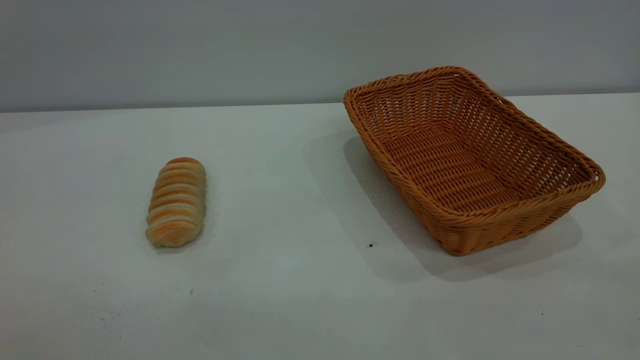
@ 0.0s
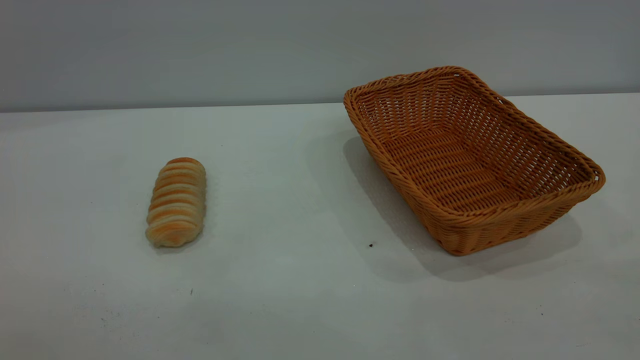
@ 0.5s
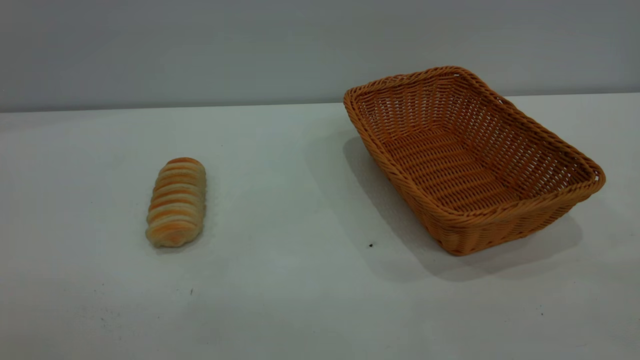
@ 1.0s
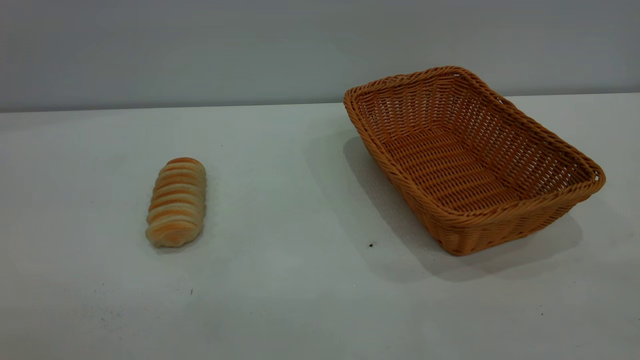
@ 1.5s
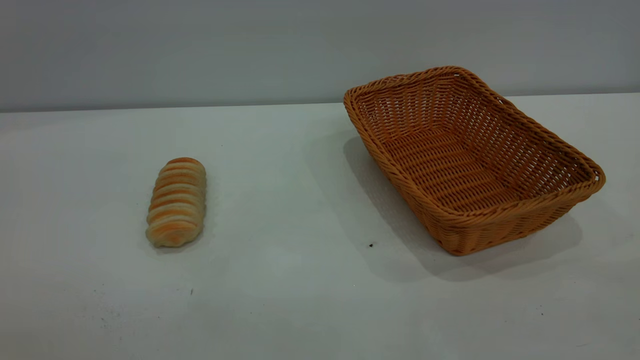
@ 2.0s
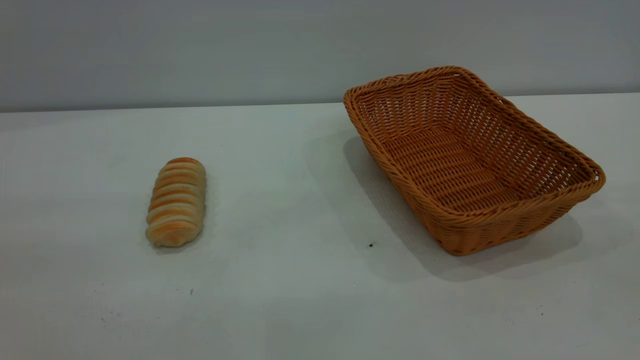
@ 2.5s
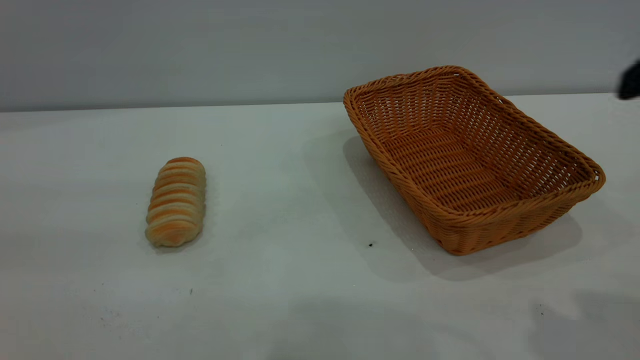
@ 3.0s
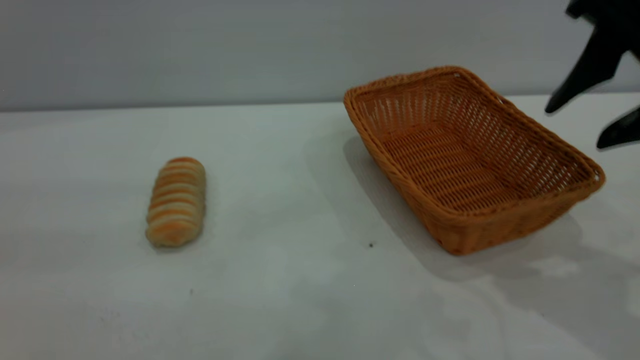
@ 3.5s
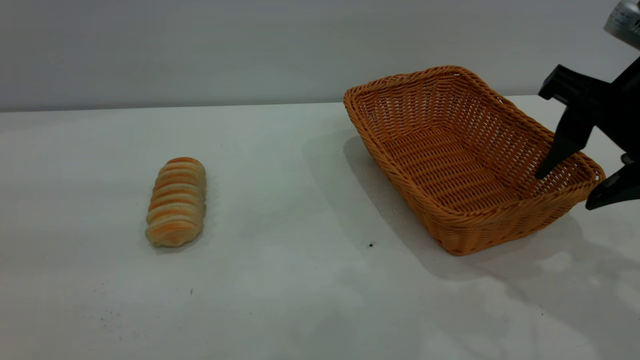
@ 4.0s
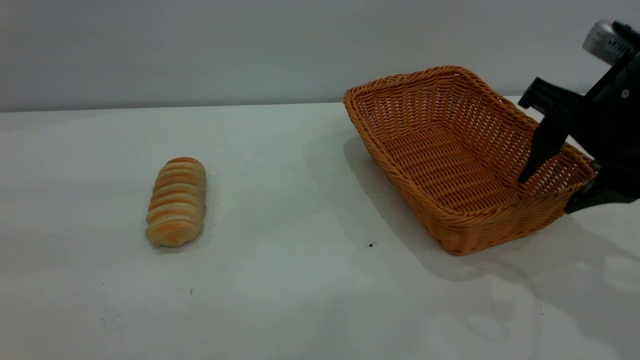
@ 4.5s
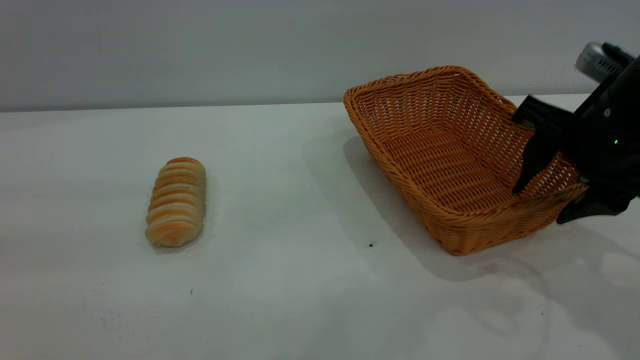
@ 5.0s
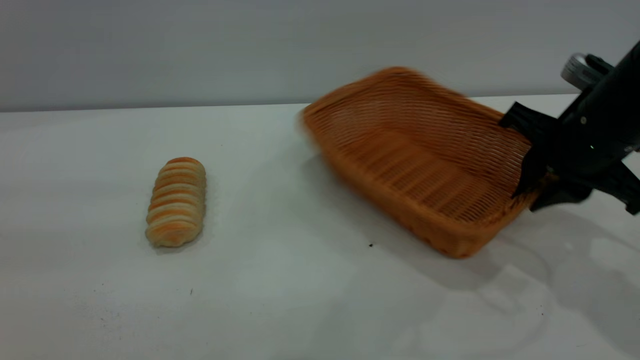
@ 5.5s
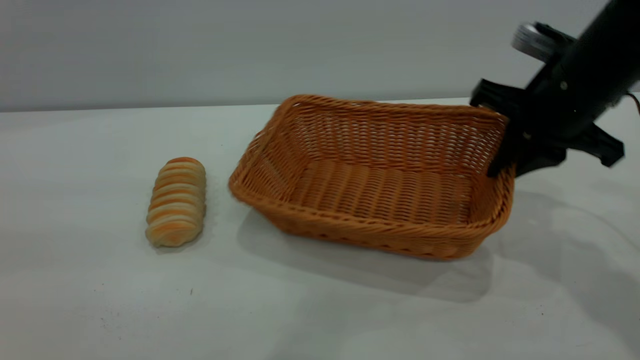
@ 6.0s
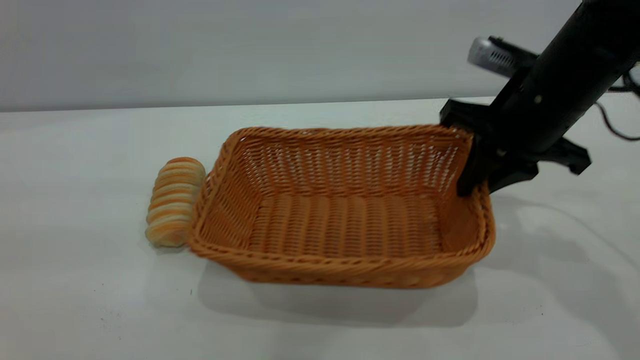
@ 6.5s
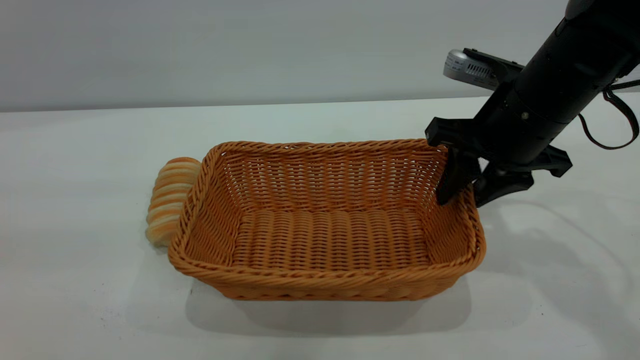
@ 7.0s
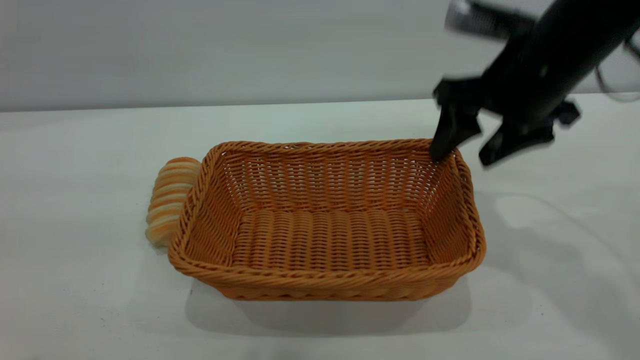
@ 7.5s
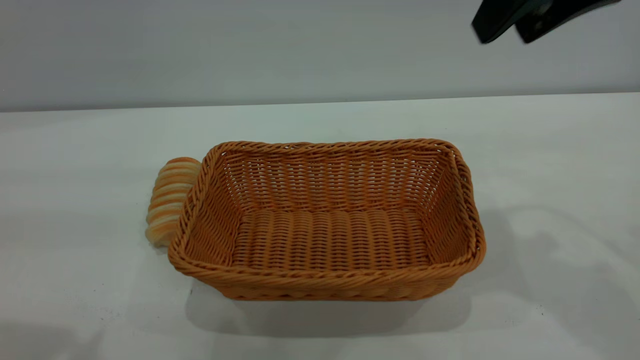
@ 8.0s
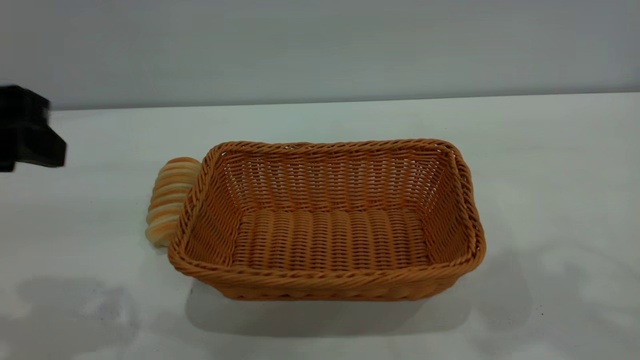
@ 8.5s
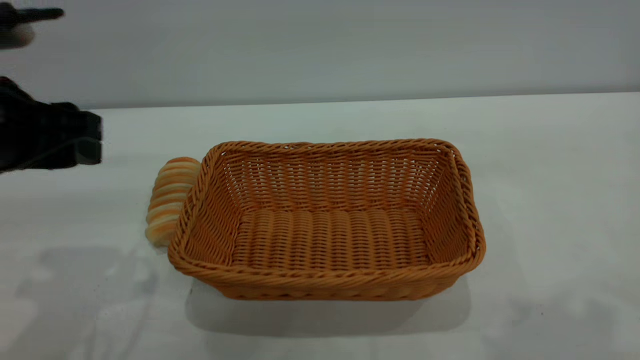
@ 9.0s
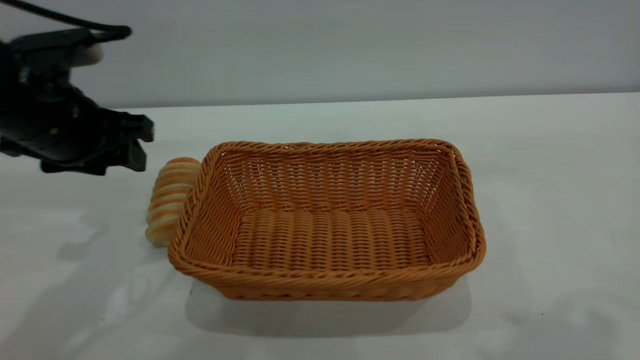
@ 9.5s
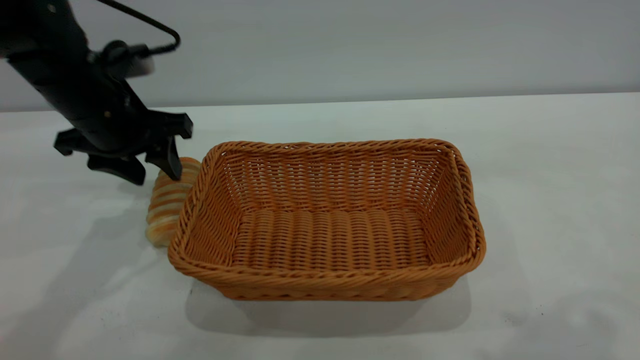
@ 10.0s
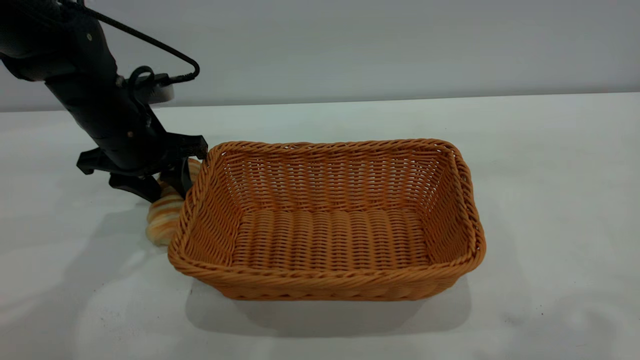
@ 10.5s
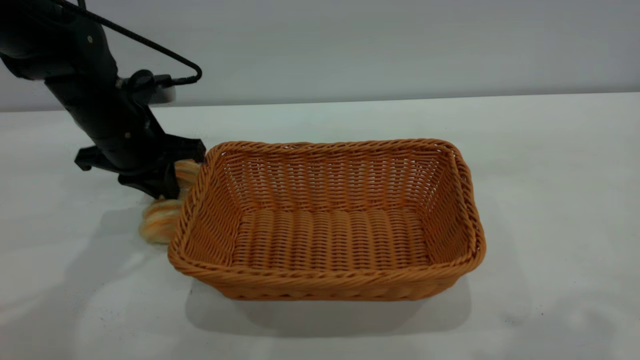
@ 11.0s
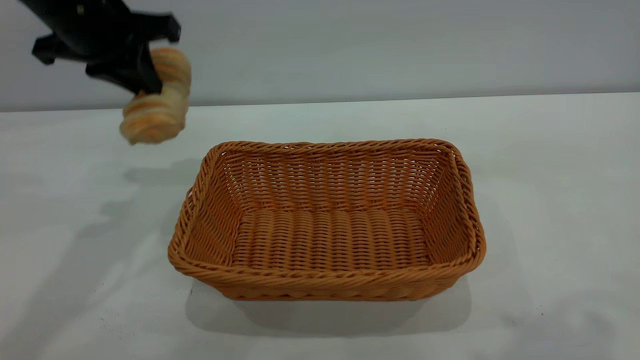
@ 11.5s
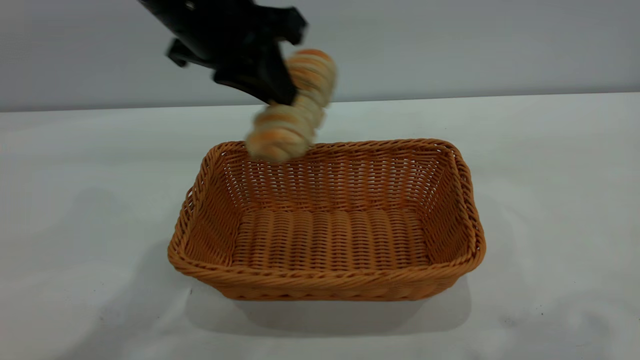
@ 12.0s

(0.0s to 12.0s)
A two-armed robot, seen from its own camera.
Task of the whole recording: One hand grasps the yellow basket and places it in the middle of the table, while the other hand picks up the long bread and puts it into the yellow basket.
Step, 0.0s - 7.5s: Move the basket to the center of view.
2.0s - 4.0s: The right gripper goes some 30 cm forward.
4.0s - 6.0s: The right gripper is displaced forward by about 10 cm, and closes its fingers.
6.0s - 8.0s: The right gripper shifts about 15 cm upward, and opens up; the left gripper ends up approximately 5 cm from where it was.
8.0s - 10.0s: The left gripper travels forward and downward by approximately 25 cm. Meanwhile the right gripper moves backward and upward, roughly 15 cm.
10.0s - 12.0s: The left gripper goes some 15 cm to the right and upward, and closes.

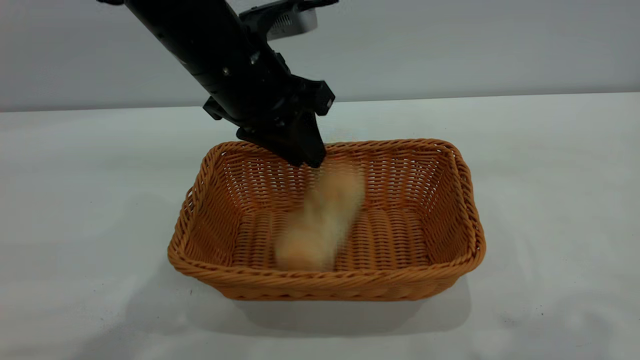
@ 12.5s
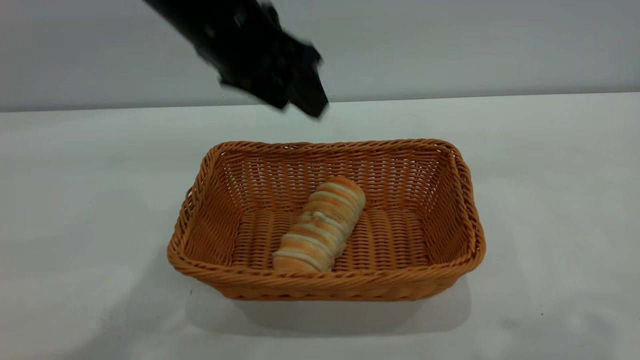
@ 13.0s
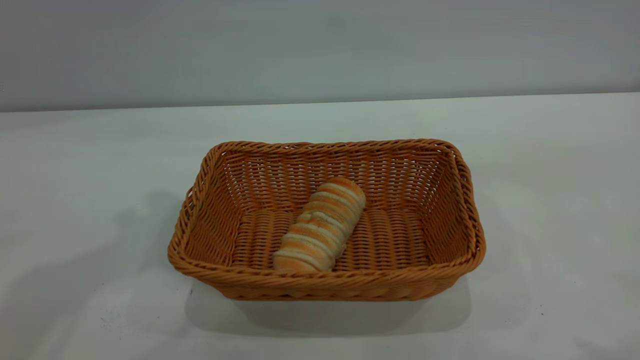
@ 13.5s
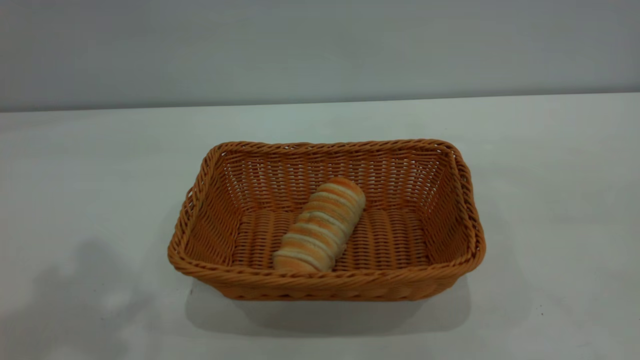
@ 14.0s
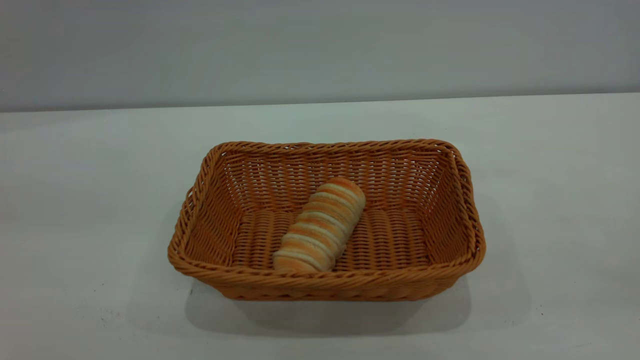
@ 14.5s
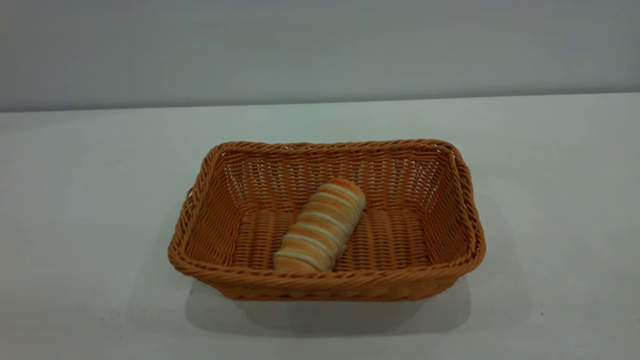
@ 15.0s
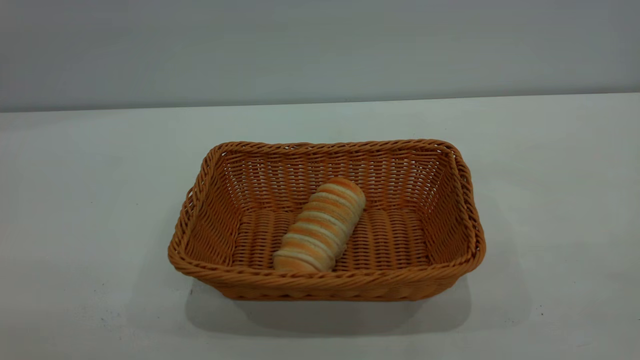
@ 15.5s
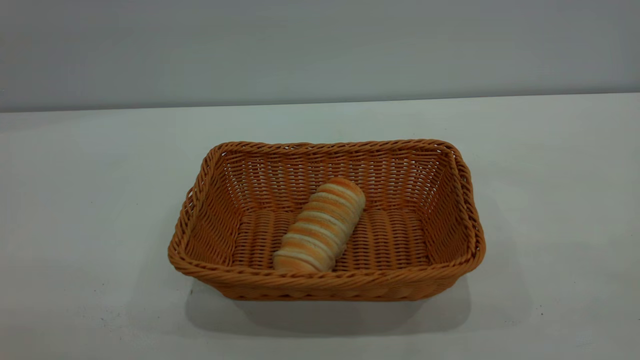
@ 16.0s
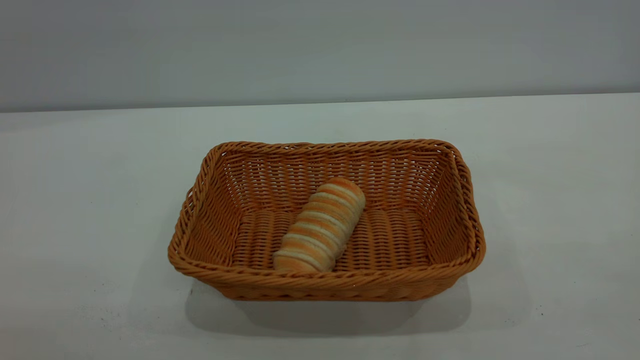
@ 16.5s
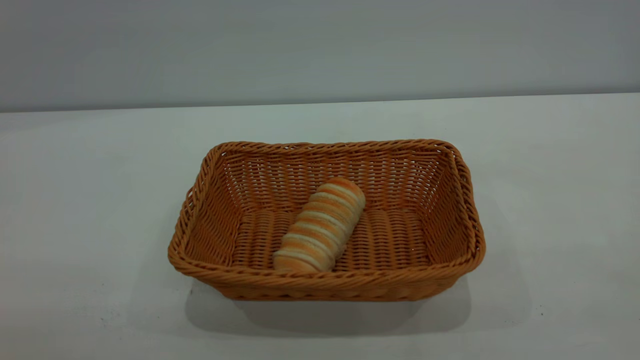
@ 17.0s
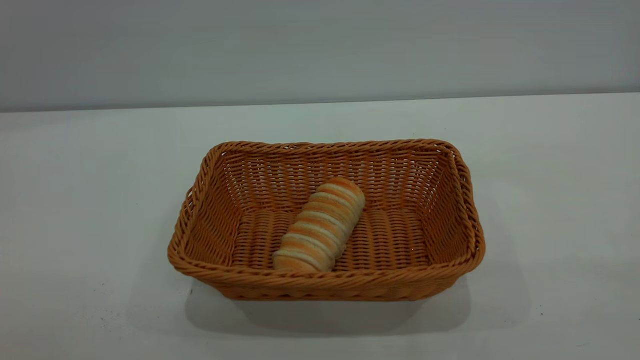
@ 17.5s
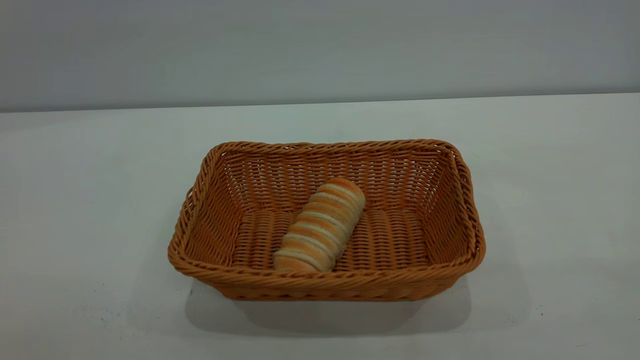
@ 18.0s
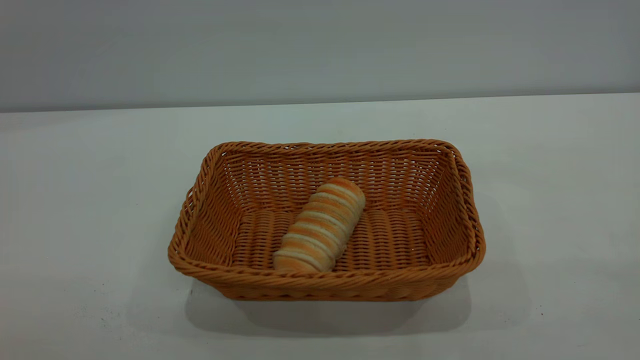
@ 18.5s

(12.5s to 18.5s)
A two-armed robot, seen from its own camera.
Task of the whole recording: One hand grasps the yellow basket and places it in the middle of the table, while the other hand picks up the long bread and puts it into the yellow basket.
12.5s - 14.5s: The right gripper shifts some 20 cm backward, to the right and downward. The left gripper is displaced backward, upward and to the left by approximately 40 cm, and opens.
